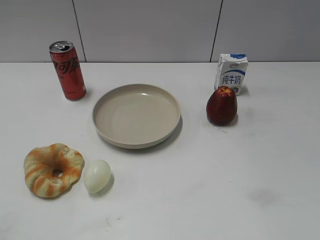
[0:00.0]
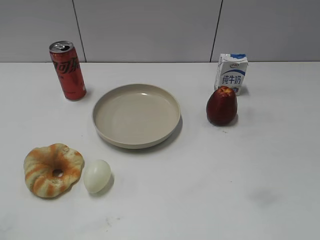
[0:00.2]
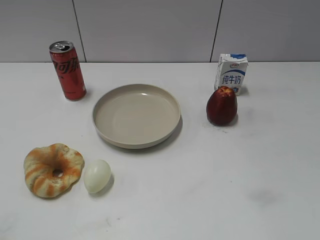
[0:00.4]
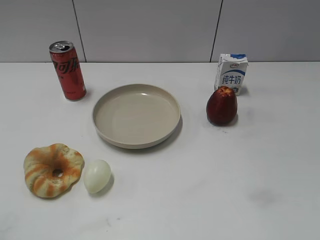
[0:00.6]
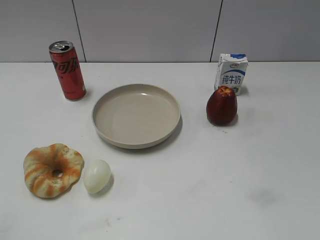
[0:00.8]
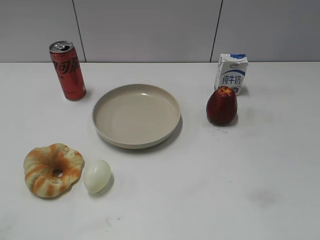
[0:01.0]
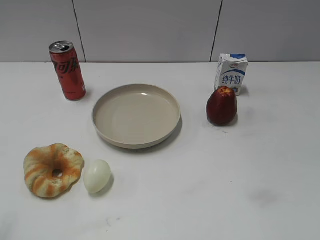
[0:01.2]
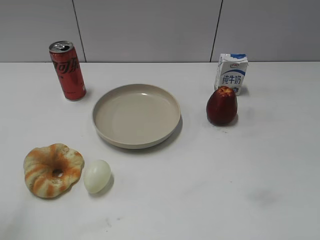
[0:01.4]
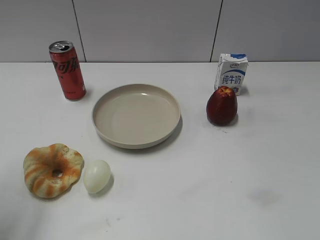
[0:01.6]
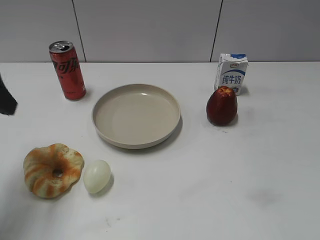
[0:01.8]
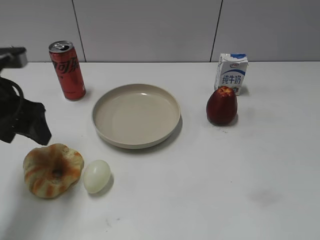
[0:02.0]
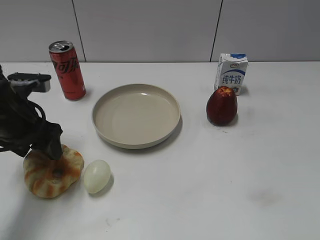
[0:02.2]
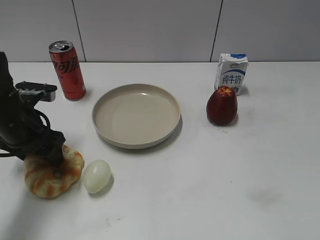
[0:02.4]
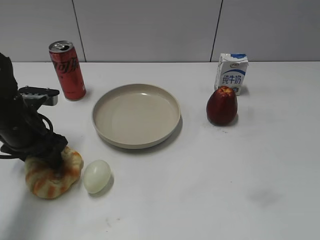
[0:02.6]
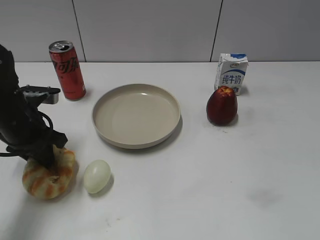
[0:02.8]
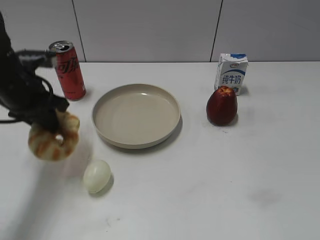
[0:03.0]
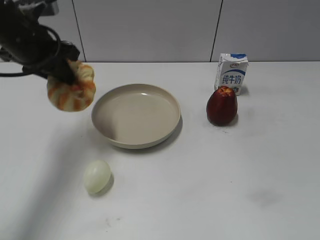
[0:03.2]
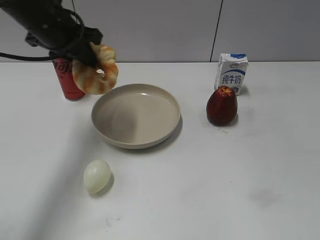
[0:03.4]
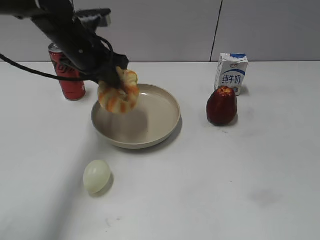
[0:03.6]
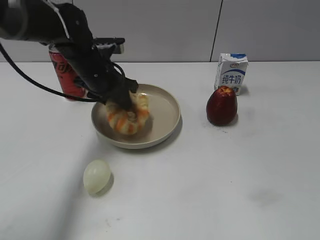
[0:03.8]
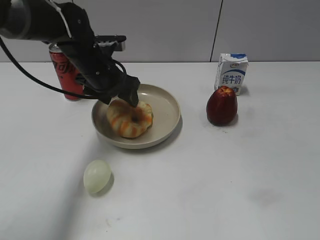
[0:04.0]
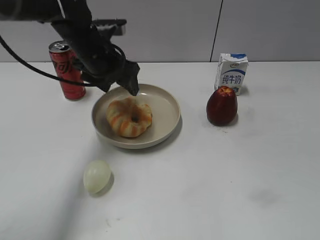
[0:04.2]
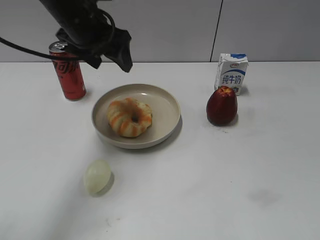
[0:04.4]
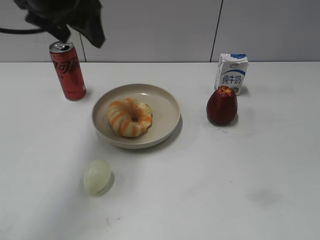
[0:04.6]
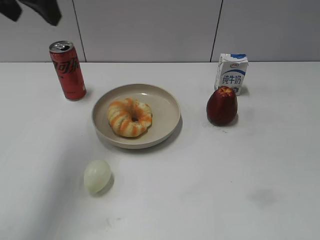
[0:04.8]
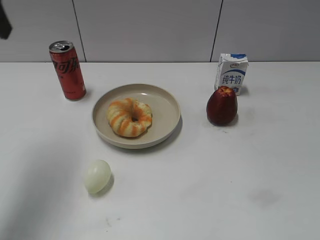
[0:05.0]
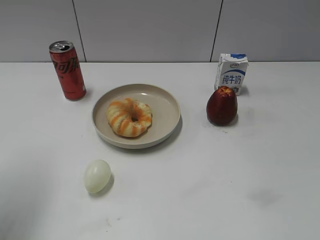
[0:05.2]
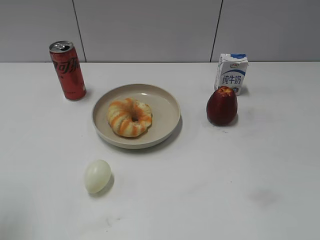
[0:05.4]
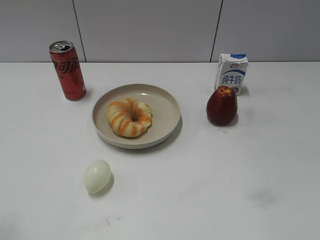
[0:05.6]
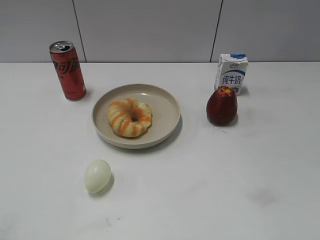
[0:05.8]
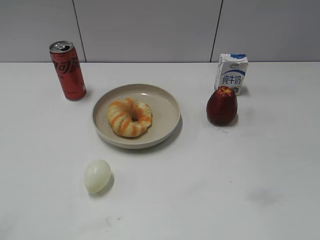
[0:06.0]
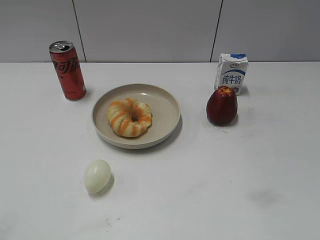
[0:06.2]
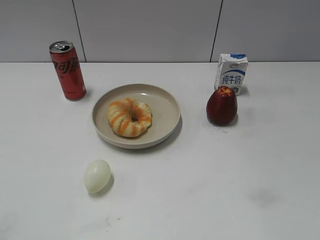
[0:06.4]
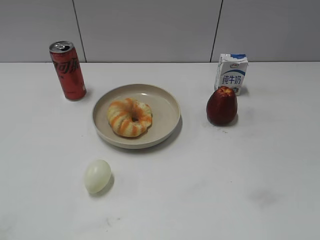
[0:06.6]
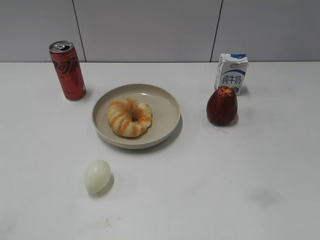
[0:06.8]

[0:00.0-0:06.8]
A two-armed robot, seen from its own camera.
Step, 0:00.8 to 0:02.6: Grasp the round bread with left gripper.
Step, 0:02.8 to 0:04.2: Place the round bread on the plate with left gripper.
0:01.4 to 0:02.8: The left gripper shifts some 25 cm downward, forward and to the right, and closes its fingers.
0:02.8 to 0:04.0: The left gripper heads to the right and forward, covering roughly 15 cm, goes upward and returns, some 10 cm each way, and opens its fingers.
0:04.0 to 0:05.4: The left gripper shifts approximately 35 cm backward, to the left and upward.
